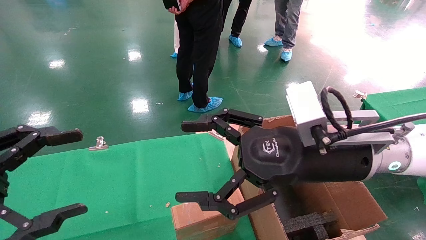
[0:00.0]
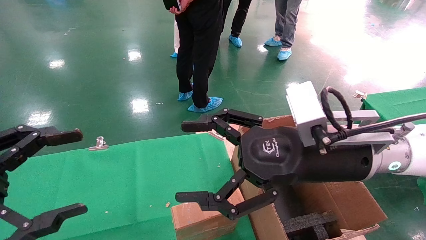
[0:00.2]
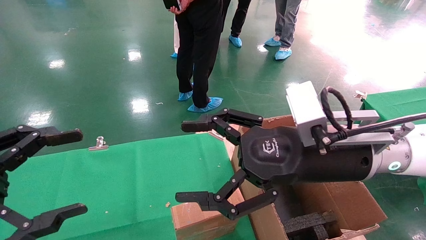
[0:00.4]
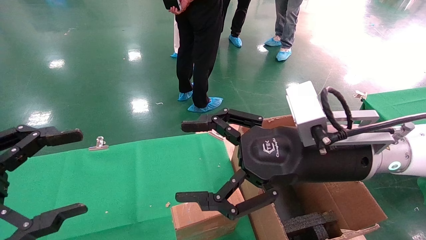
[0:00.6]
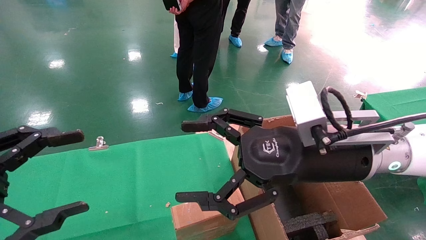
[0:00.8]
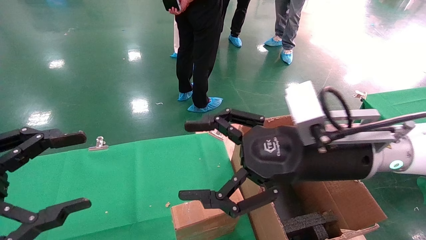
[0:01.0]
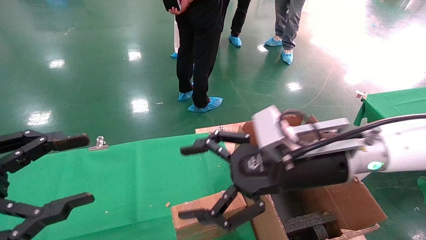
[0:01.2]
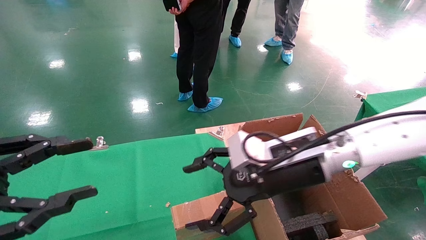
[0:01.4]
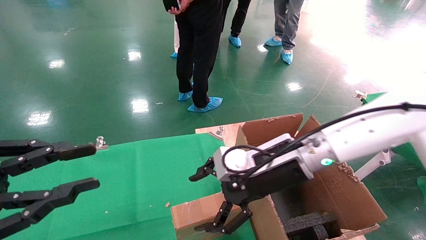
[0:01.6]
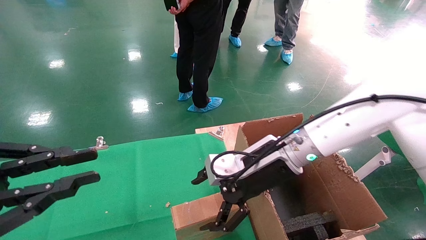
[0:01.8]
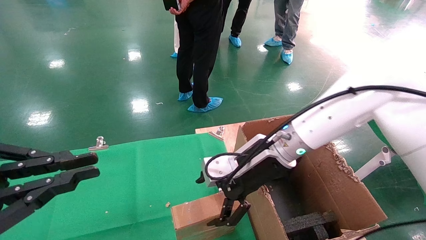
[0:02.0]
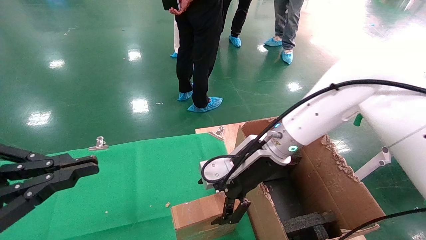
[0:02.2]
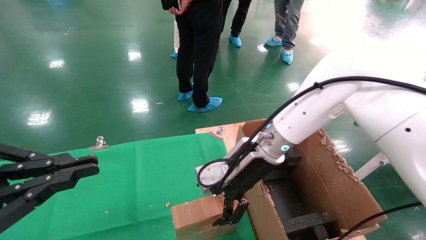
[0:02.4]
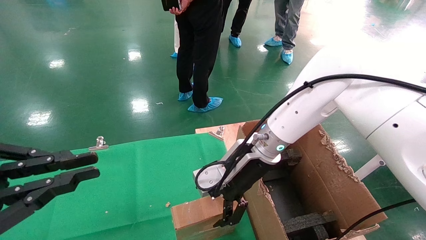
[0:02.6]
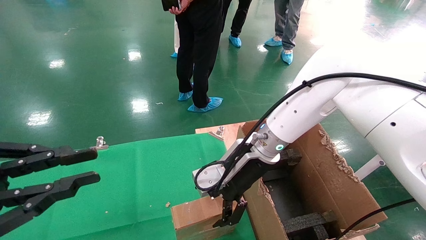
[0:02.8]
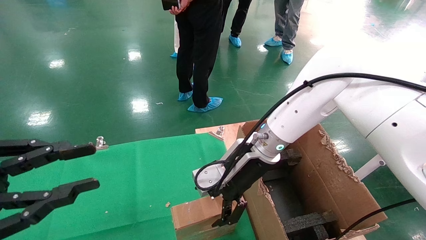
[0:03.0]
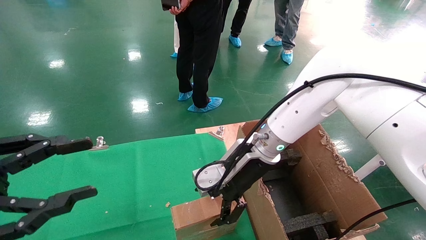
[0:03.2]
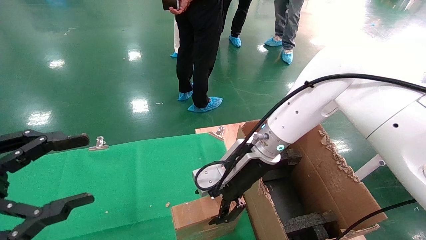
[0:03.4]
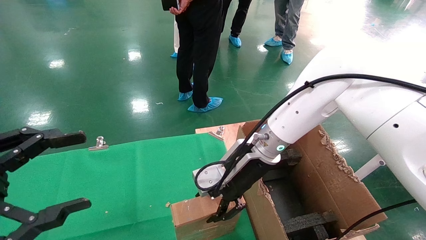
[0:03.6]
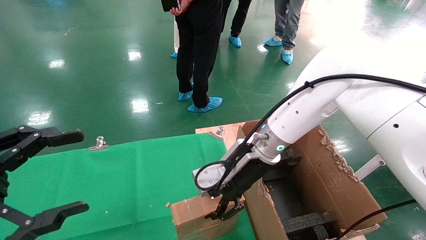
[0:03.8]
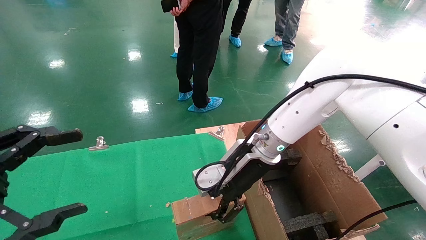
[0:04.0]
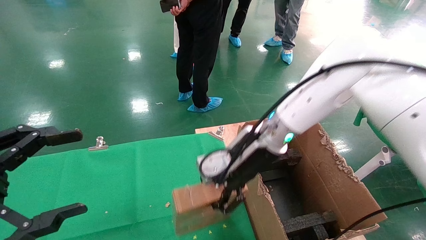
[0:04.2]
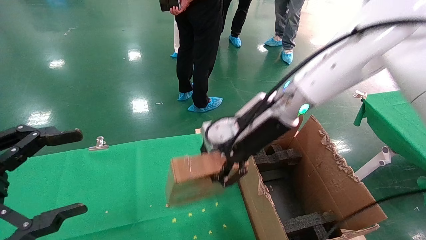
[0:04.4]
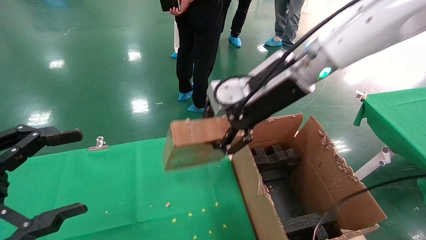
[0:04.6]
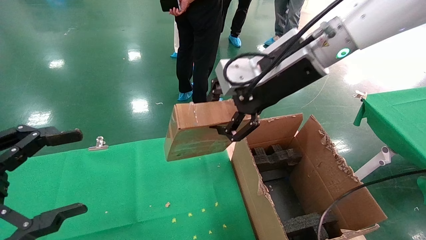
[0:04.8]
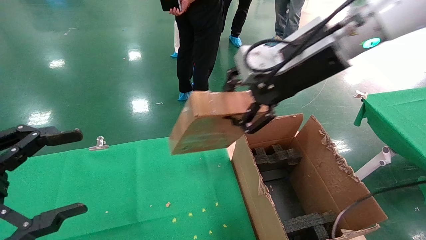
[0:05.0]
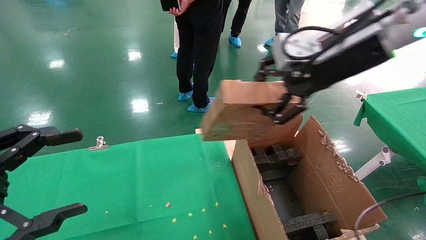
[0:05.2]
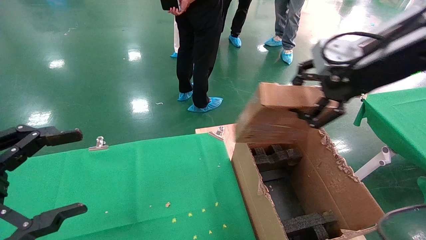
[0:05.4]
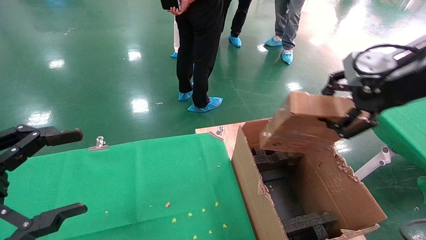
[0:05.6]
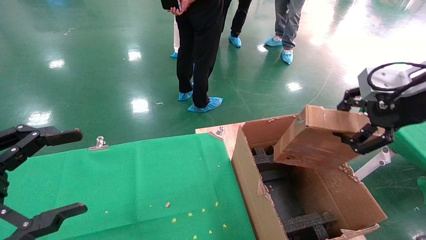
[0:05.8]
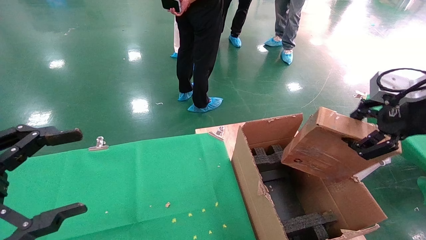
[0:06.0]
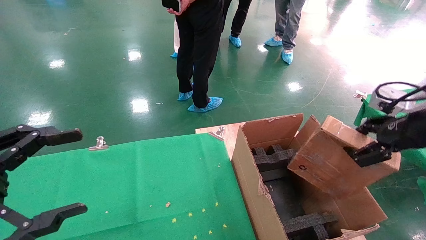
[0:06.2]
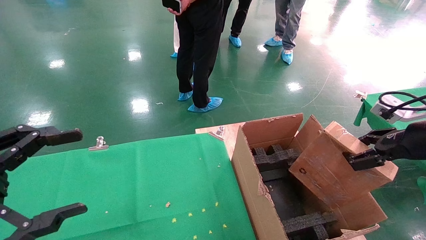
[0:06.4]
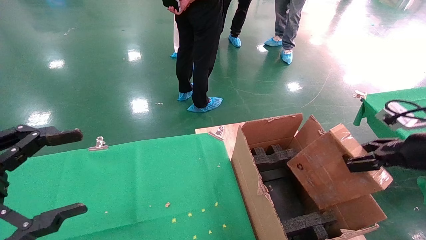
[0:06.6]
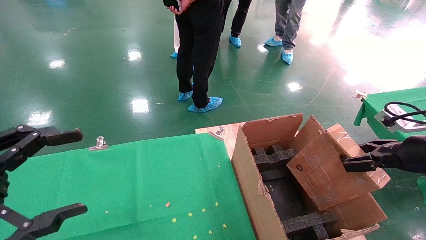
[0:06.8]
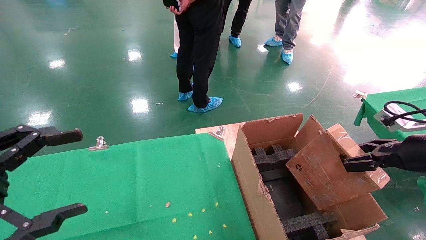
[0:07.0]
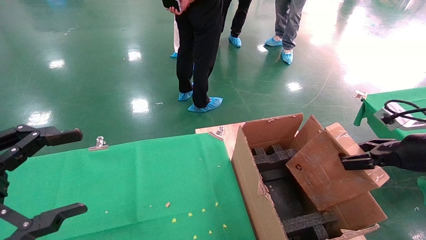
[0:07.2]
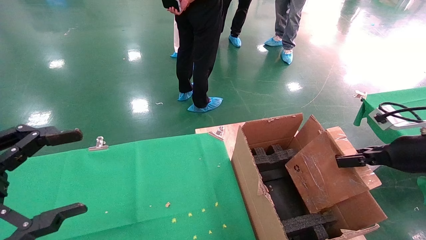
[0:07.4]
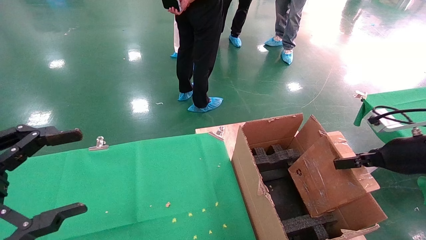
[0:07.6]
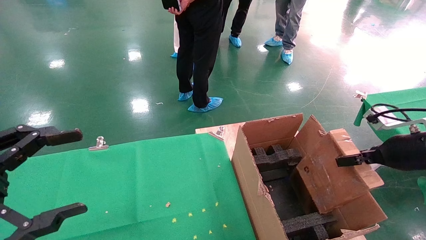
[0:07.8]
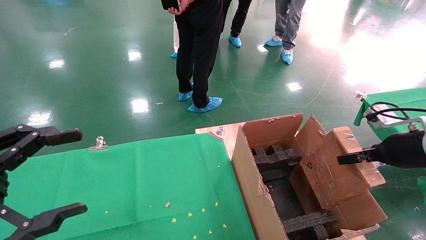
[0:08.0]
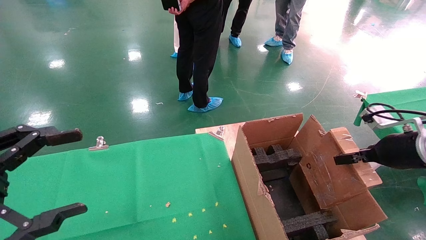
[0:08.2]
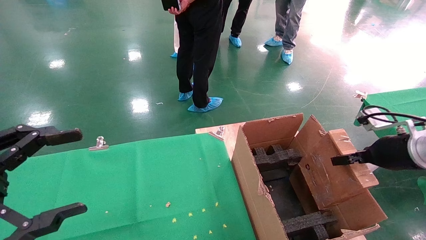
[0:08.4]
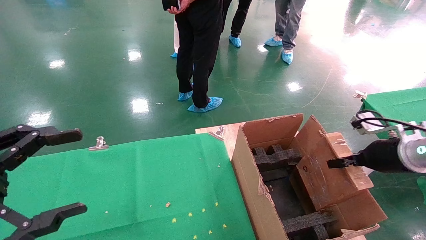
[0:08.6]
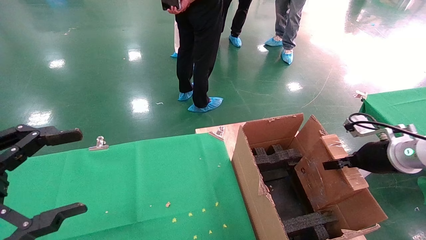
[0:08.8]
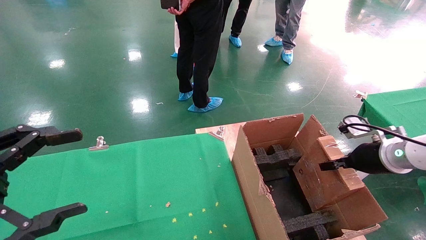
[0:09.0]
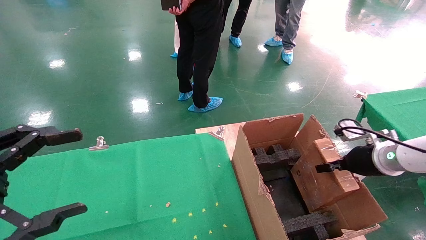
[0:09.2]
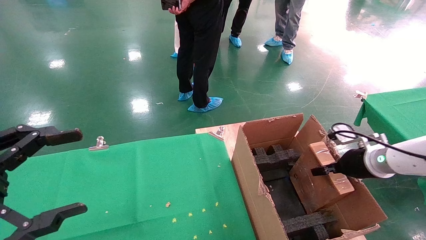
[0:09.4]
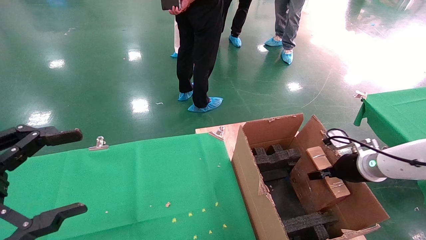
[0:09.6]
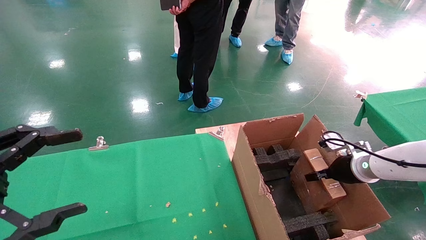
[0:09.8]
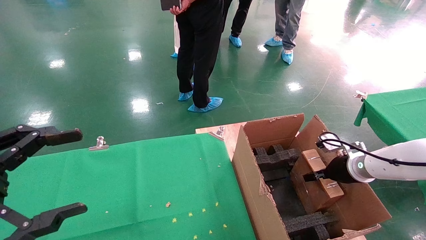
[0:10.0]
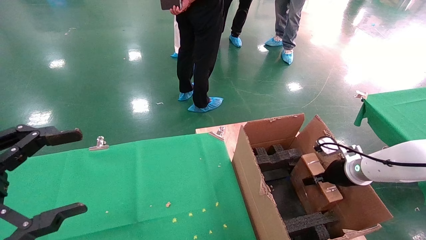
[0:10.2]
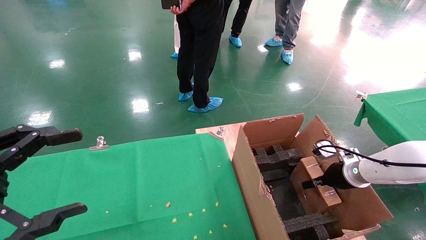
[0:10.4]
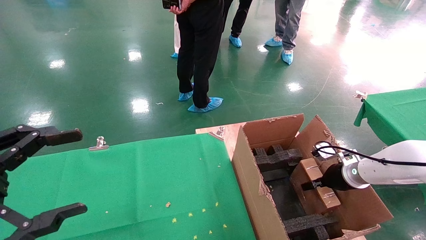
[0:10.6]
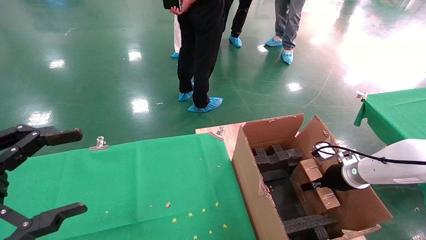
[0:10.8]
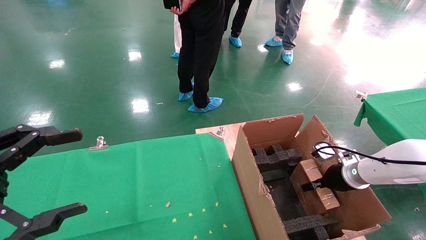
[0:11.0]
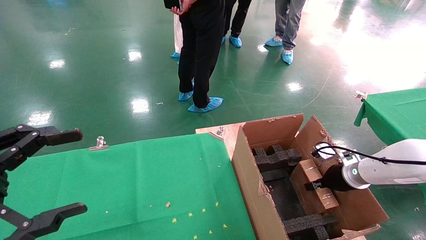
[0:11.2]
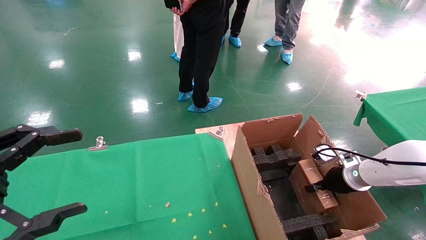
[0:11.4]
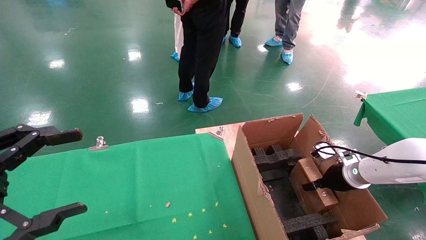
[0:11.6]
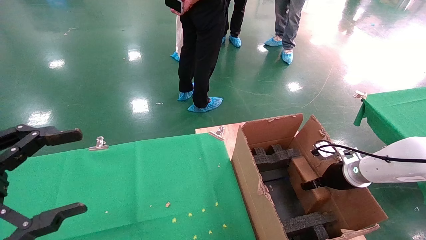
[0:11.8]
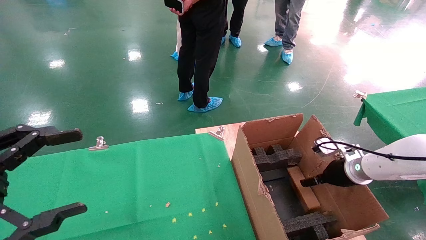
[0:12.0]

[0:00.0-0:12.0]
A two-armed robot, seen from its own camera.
Task of the whole recording: using a robotic arm to pick up a cardboard box and palace it the carton.
Step, 0:01.4 to 0:04.0: Pick up the mouse and the power cord paper box.
0:00.0 to 0:01.6: The left gripper closes its fingers; the right gripper moves forward and downward, some 10 cm.
0:01.6 to 0:03.0: The right gripper shifts roughly 5 cm forward.
0:03.0 to 0:04.4: The left gripper opens. The right gripper travels upward by about 10 cm, and closes up.
0:04.4 to 0:06.0: The right gripper shifts some 25 cm to the right and backward.
0:06.0 to 0:07.6: The right gripper moves downward, some 15 cm.
0:07.6 to 0:09.0: The right gripper travels forward and downward by about 10 cm.
0:09.0 to 0:10.4: The right gripper is displaced downward and forward by some 10 cm.
0:10.4 to 0:12.0: The right gripper opens.

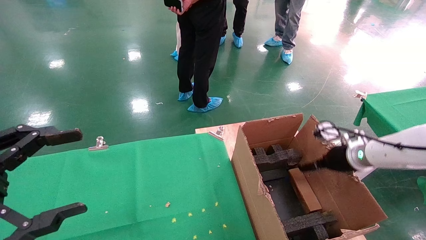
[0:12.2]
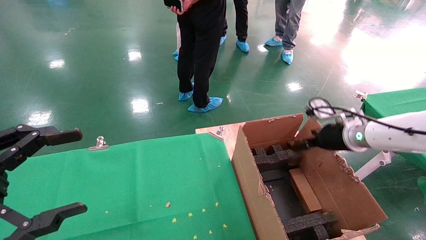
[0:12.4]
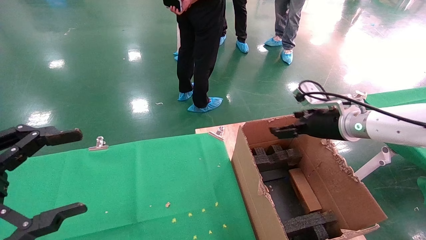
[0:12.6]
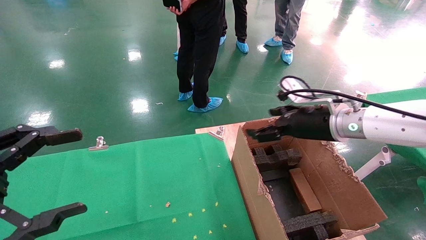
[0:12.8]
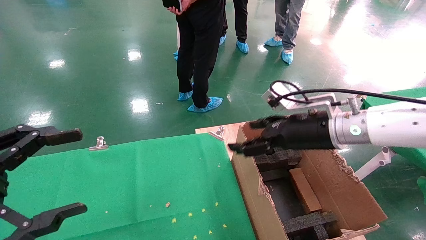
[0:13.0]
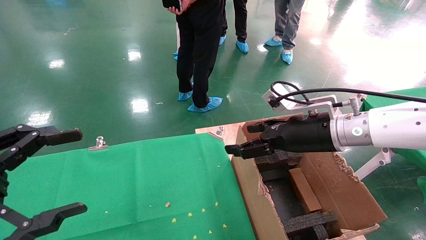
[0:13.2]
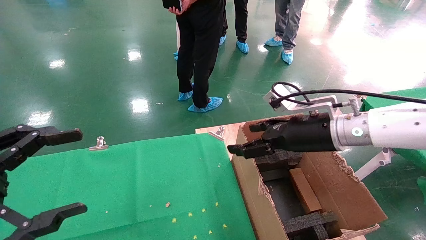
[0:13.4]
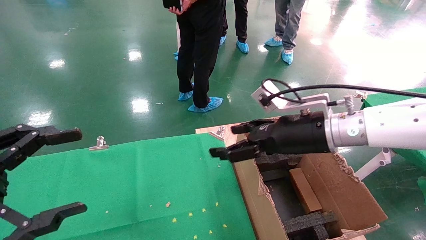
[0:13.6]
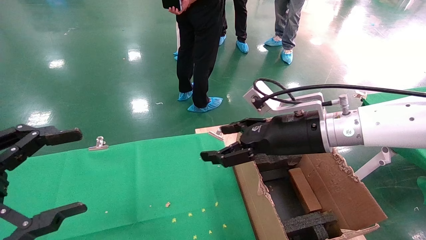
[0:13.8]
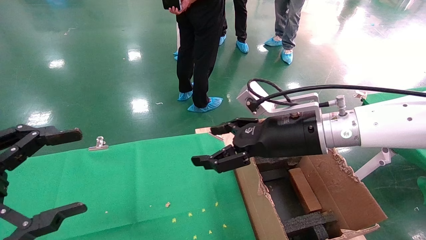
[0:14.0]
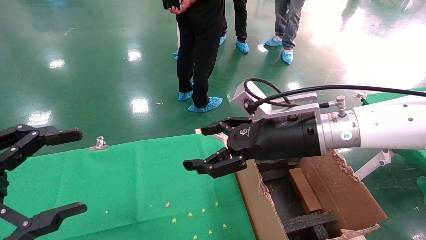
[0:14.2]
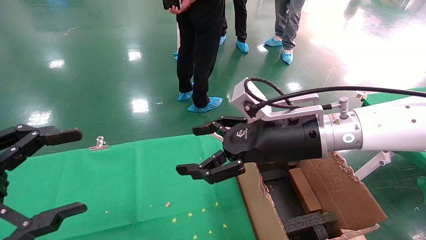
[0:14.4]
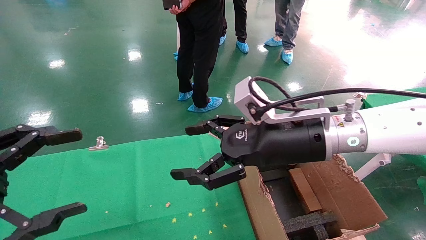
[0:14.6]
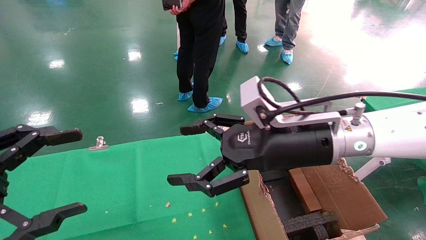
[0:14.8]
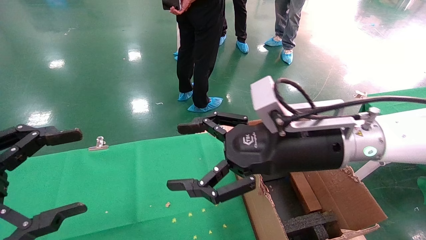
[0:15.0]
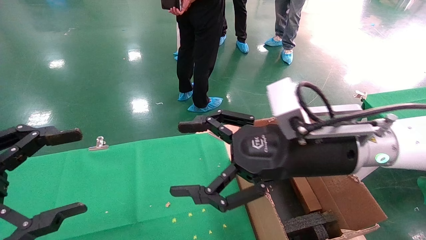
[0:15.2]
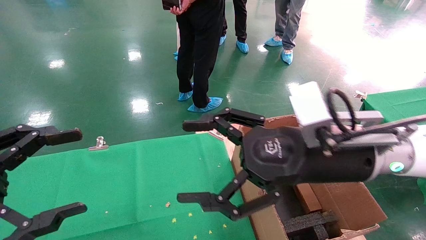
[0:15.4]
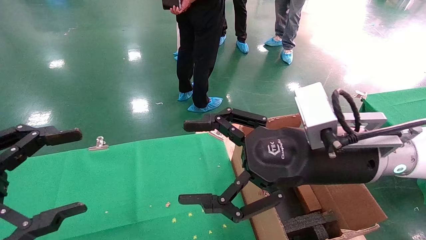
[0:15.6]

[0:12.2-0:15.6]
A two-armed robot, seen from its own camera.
Task of the whole recording: using a robotic arm to pick up a cardboard box and palace it the carton.
0:12.2 to 0:13.8: The right gripper is displaced to the left, upward and backward by roughly 25 cm.
0:13.8 to 0:15.6: The right gripper moves backward, approximately 10 cm.

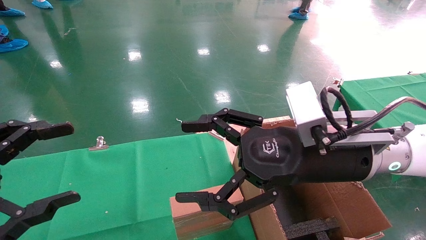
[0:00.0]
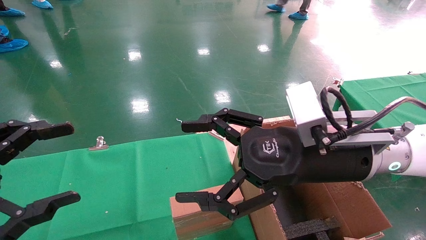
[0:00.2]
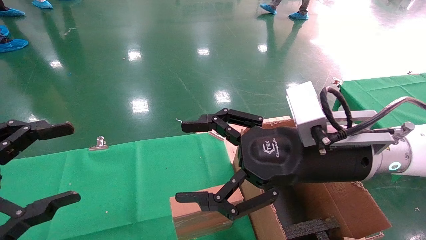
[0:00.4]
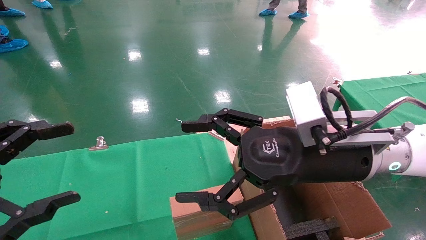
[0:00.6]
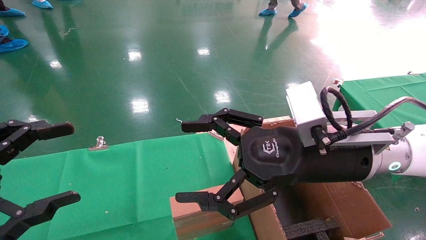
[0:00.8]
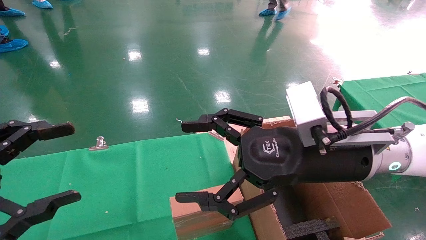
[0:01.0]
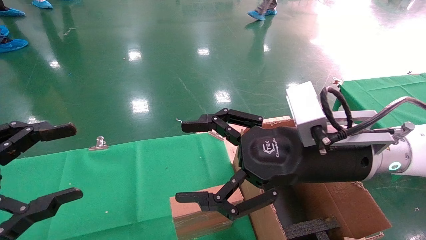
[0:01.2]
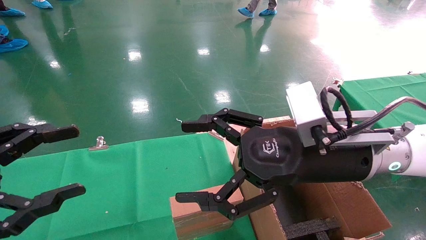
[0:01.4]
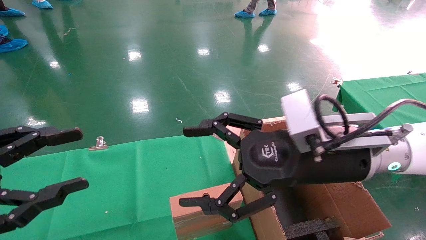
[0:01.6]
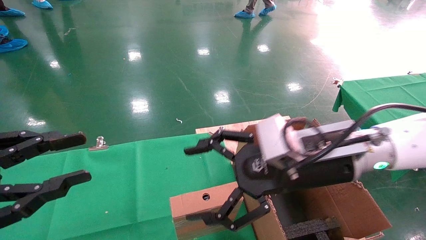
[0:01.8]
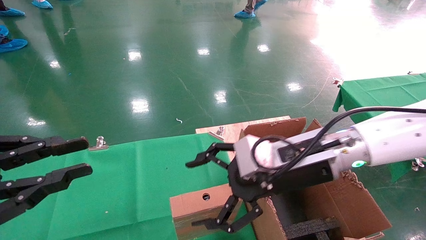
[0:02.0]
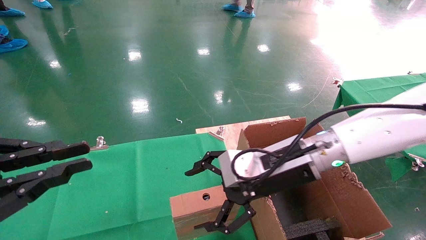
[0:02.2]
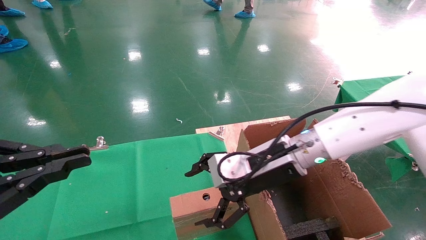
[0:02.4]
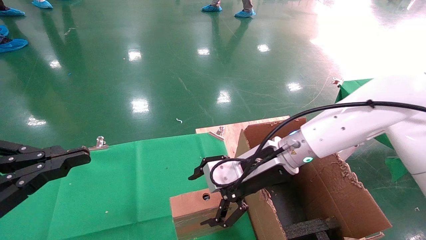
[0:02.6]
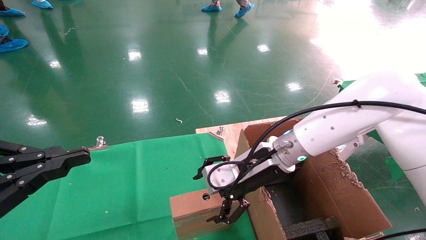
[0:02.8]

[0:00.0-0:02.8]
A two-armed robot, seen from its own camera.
Task of the whole recording: using a robotic arm to pick up a cardboard box and palace it the carton.
0:00.0 to 0:01.4: Neither gripper changes place.
0:01.4 to 0:02.8: The right gripper shifts approximately 10 cm forward and downward. Meanwhile the left gripper closes its fingers.
